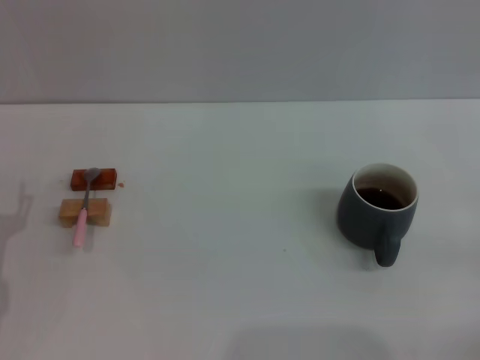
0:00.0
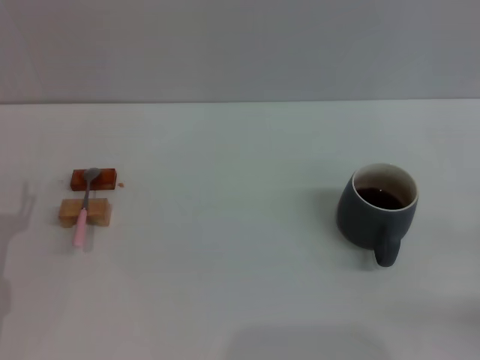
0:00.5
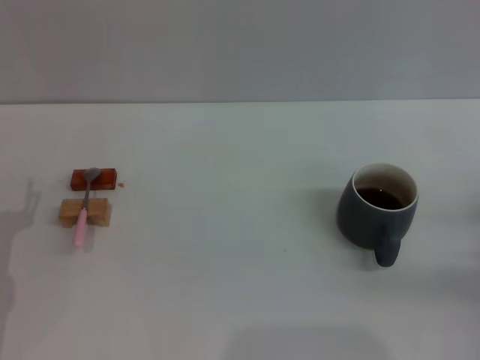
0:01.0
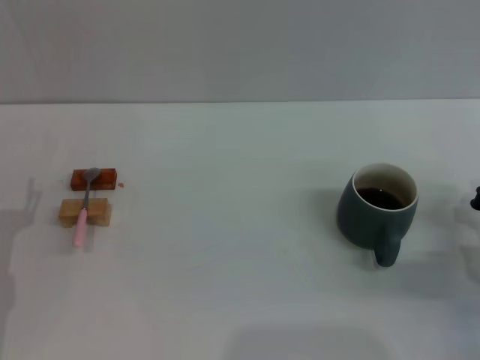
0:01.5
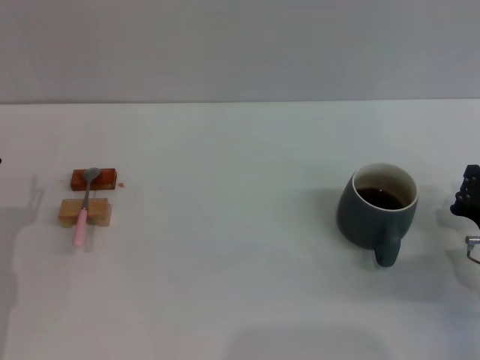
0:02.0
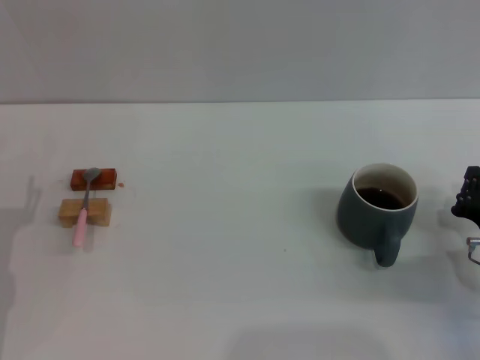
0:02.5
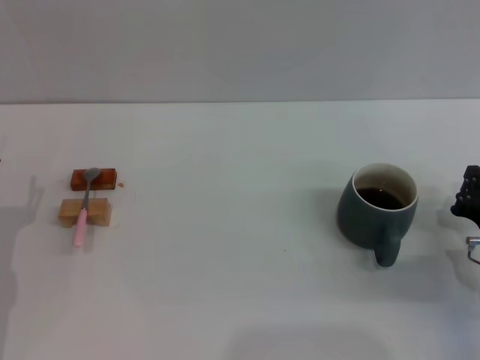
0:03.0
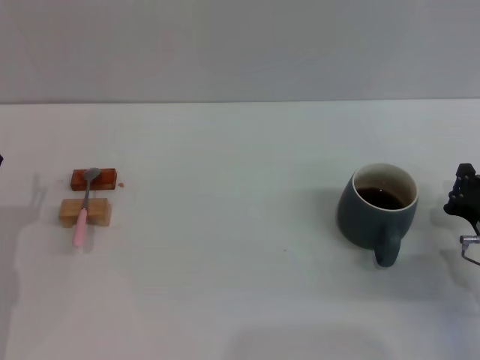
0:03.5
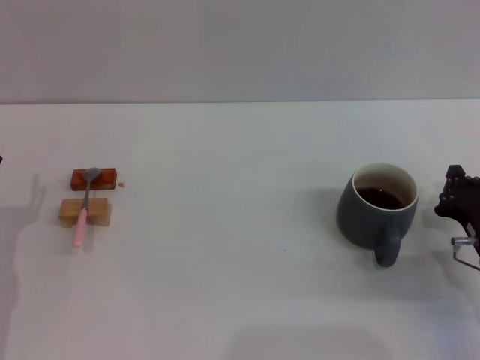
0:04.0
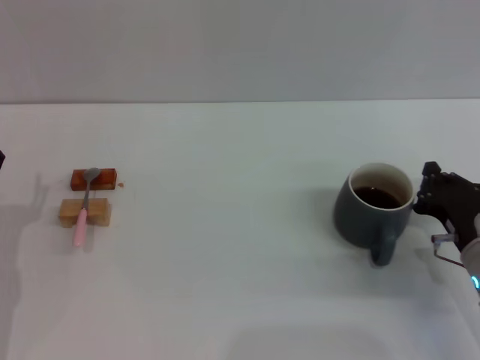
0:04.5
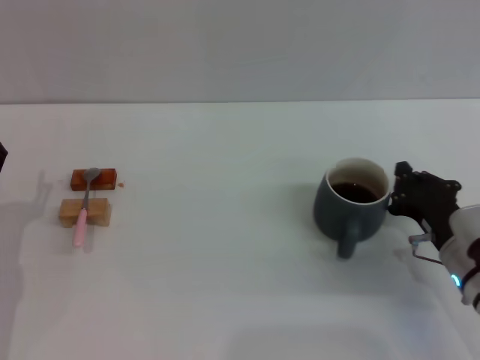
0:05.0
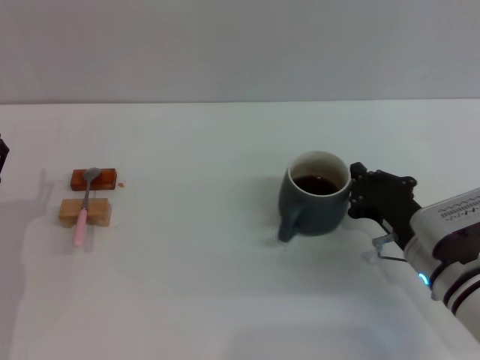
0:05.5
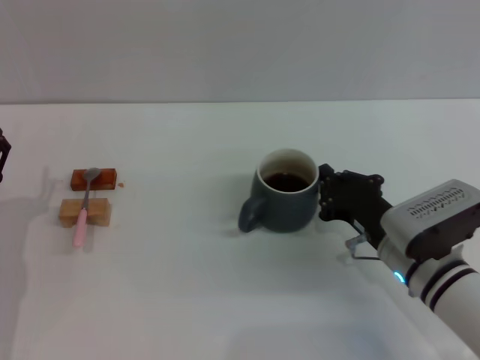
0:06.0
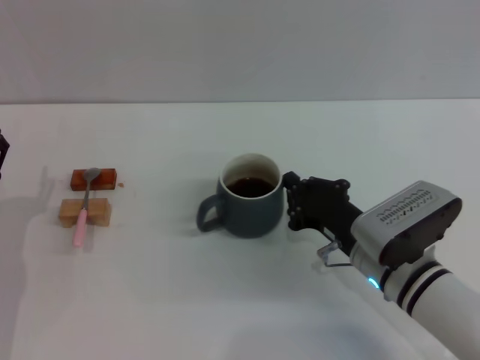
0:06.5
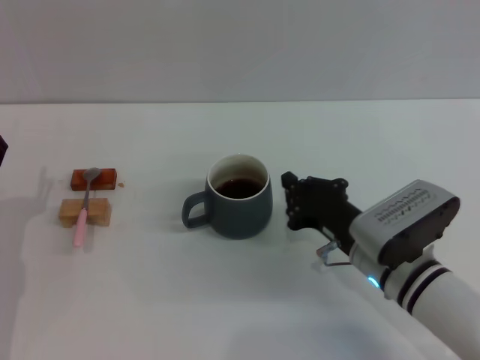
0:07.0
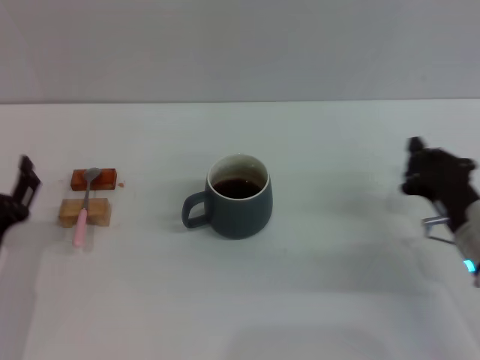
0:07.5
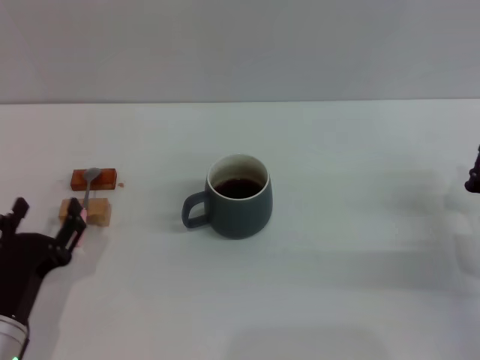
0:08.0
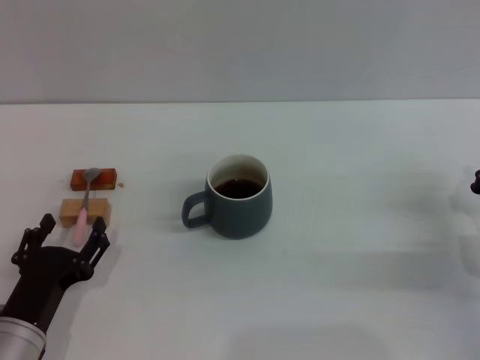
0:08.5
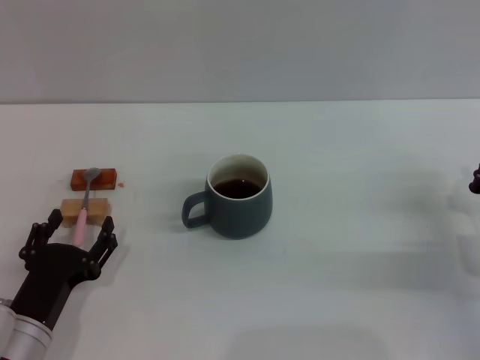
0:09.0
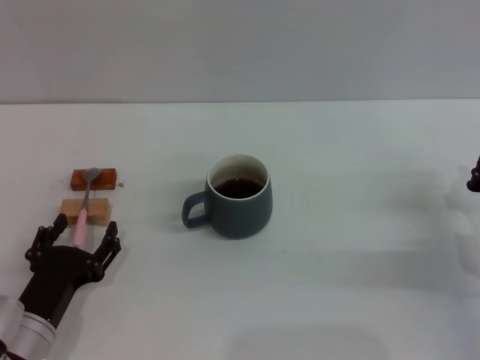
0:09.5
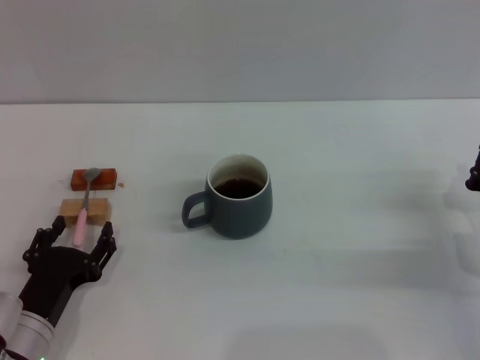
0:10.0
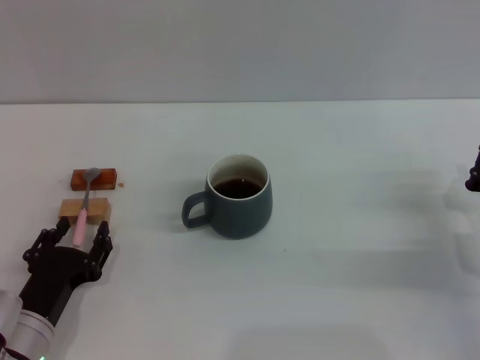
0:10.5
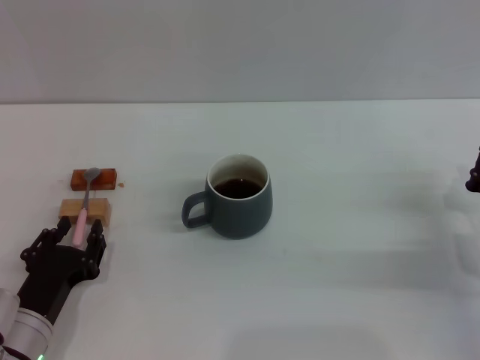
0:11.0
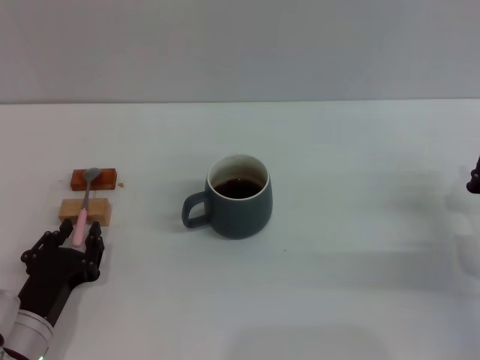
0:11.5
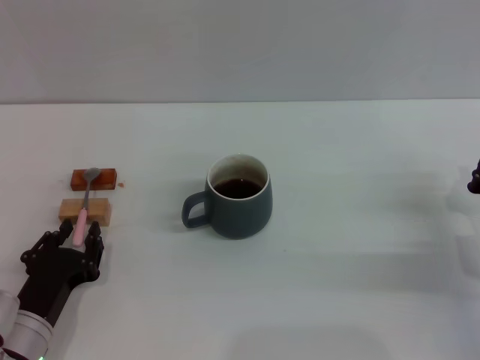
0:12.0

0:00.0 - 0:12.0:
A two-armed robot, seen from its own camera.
Task of the whole recording: Move the grey cup to the center, lift the pink spoon, stir it three times in the cup, and put the spoon into the cup.
Step, 0:00.0 - 0:07.0: Move the cup with coffee to the center of view with the right gripper.
0:00.0 - 0:02.0: The right gripper is displaced to the left and forward by approximately 10 cm.
0:02.0 - 0:04.0: Neither gripper changes place.
0:04.0 - 0:06.0: The right gripper goes roughly 10 cm to the left.
0:06.0 - 0:08.0: The left gripper heads backward, covering about 5 cm; the right gripper heads to the right, covering approximately 10 cm.
0:08.0 - 0:10.0: The grippers make only small movements.
0:10.0 - 0:12.0: The left gripper closes.

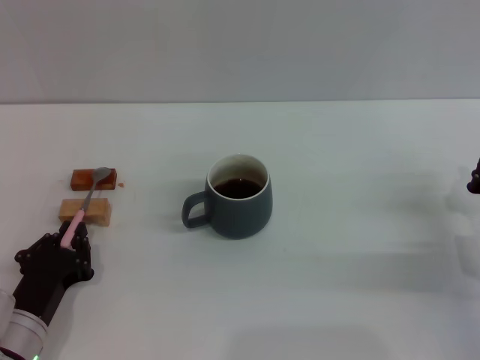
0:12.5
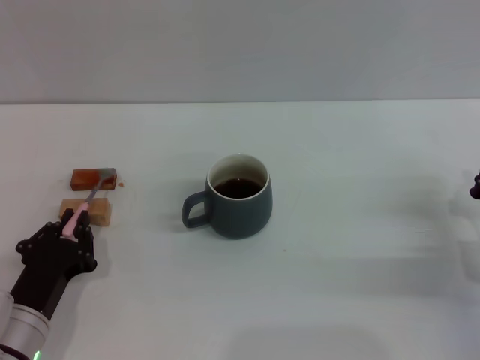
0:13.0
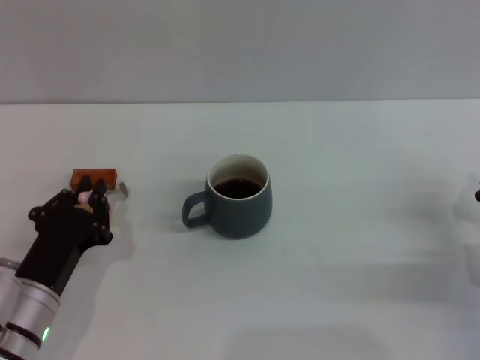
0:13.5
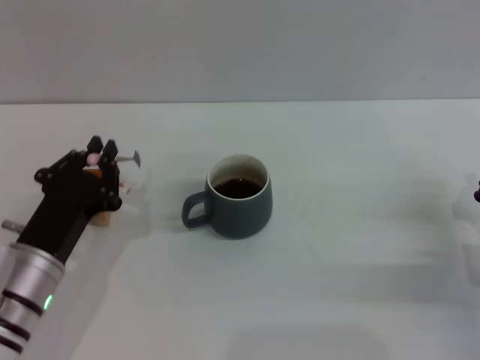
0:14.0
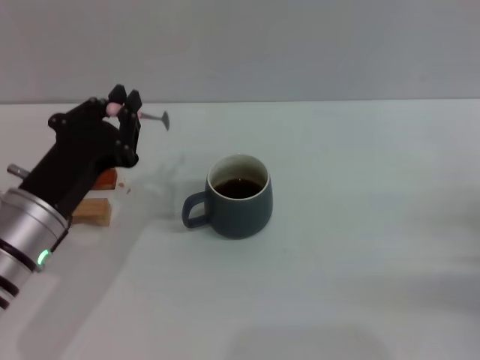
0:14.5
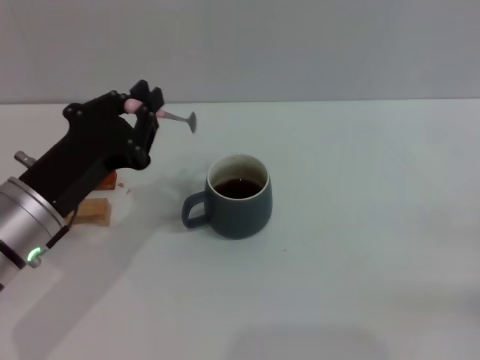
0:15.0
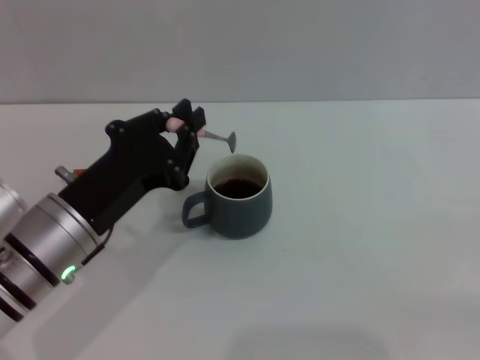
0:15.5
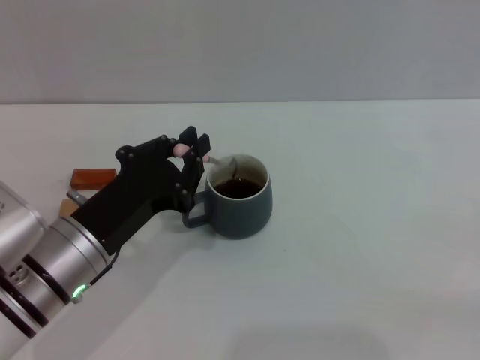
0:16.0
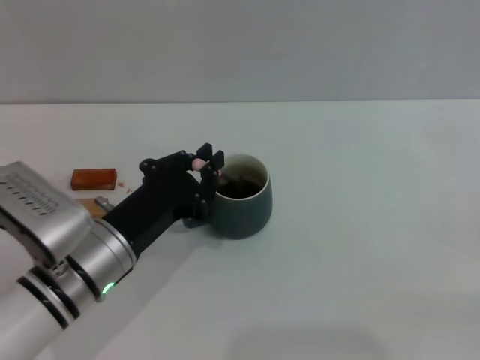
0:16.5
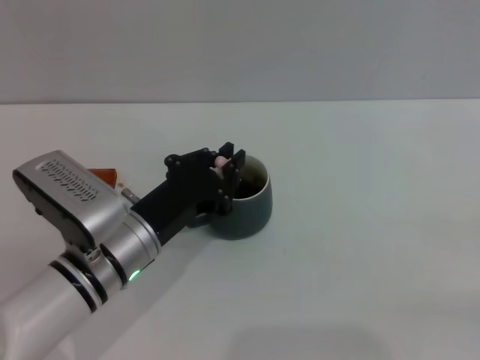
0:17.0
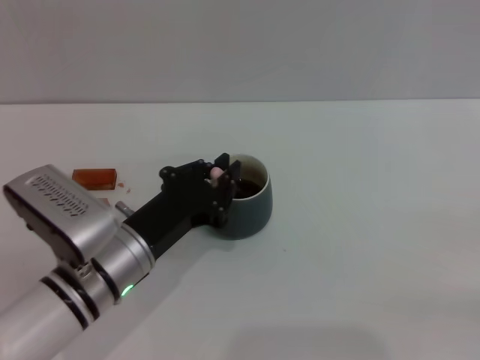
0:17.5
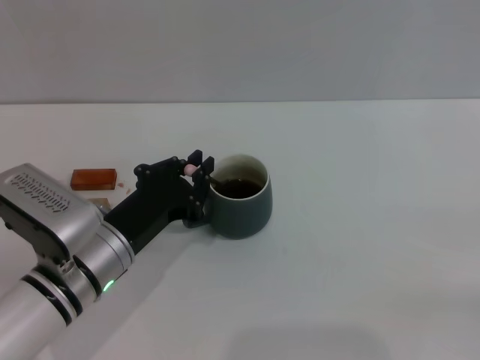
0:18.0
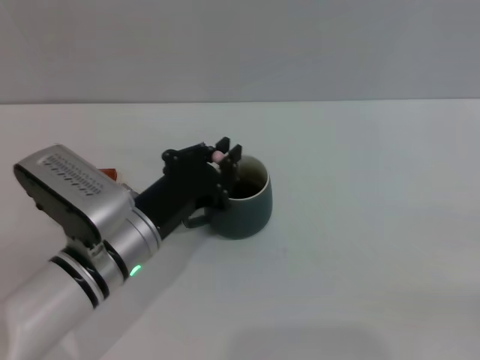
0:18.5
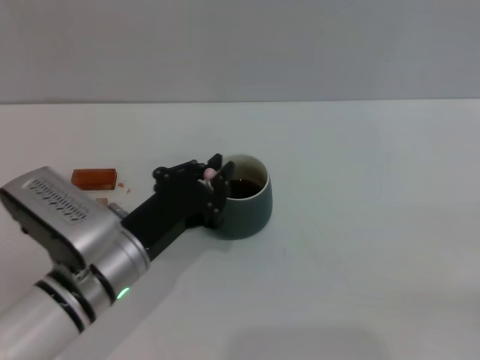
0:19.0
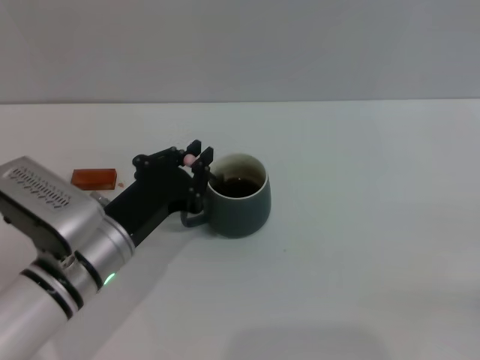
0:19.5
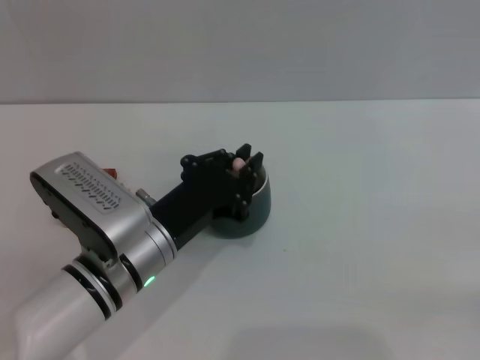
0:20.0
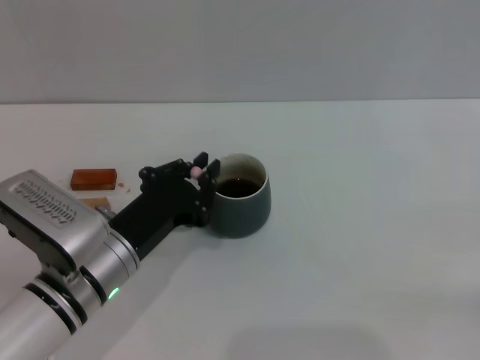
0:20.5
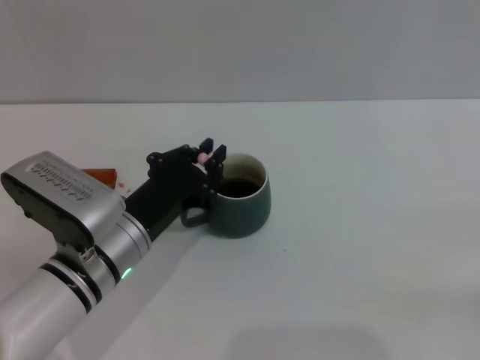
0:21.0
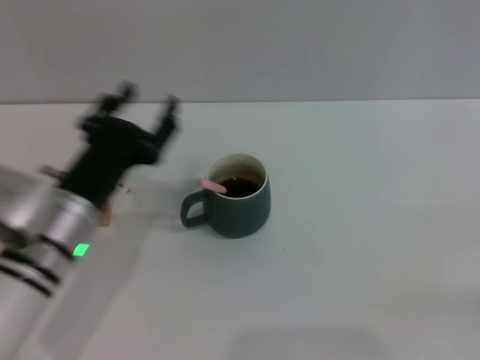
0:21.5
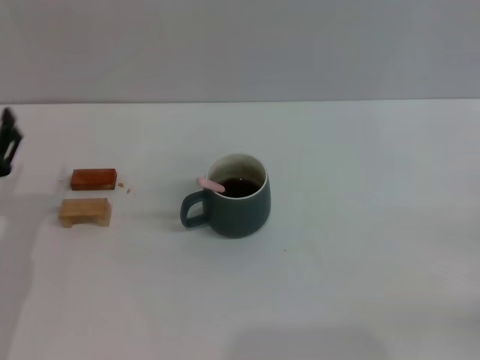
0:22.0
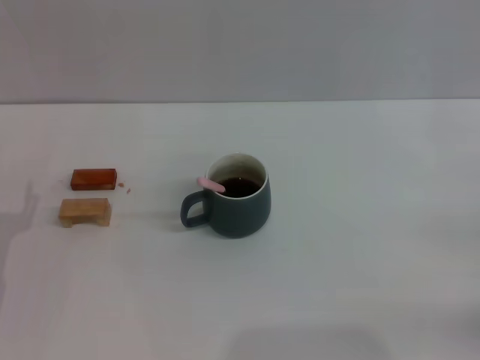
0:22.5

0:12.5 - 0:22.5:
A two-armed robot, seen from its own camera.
Task of the whole recording: Move the grey cup to the center, lift the pink spoon, stir it three times in the cup, and put the spoon into the cup.
Step, 0:14.5 - 0:21.0: Stir the coffee in the cup with the left gripper.
0:12.5 - 0:14.5: The right gripper moves some 5 cm. Meanwhile the left gripper goes approximately 10 cm upward.
0:14.5 - 0:16.5: The right gripper is displaced to the right by roughly 5 cm, while the left gripper ends up roughly 5 cm from where it was.
0:16.5 - 0:20.5: The grippers move only a little.
0:20.5 - 0:22.5: The left gripper heads to the left, covering approximately 15 cm, and opens.
